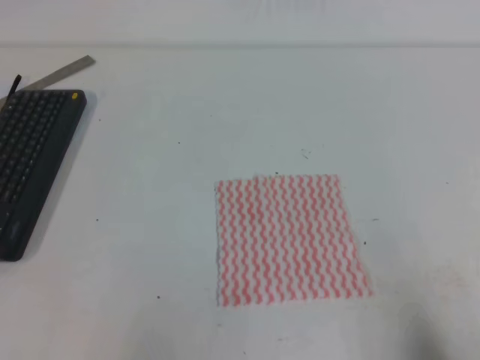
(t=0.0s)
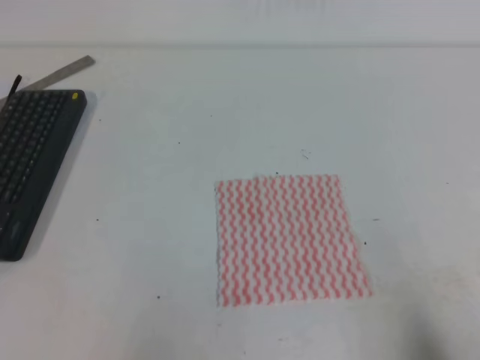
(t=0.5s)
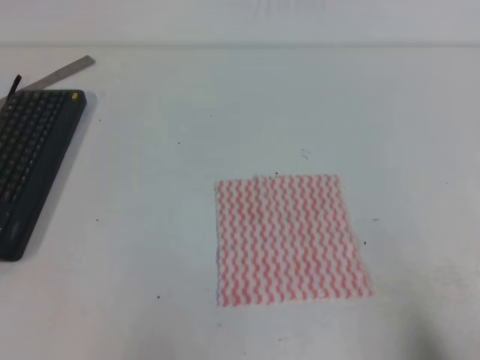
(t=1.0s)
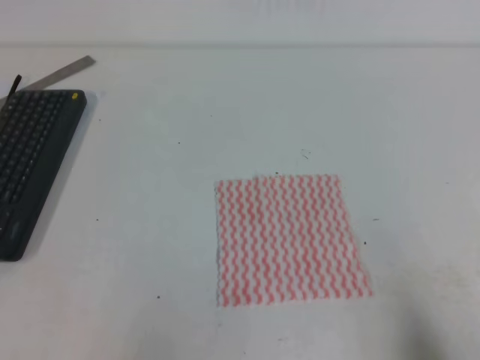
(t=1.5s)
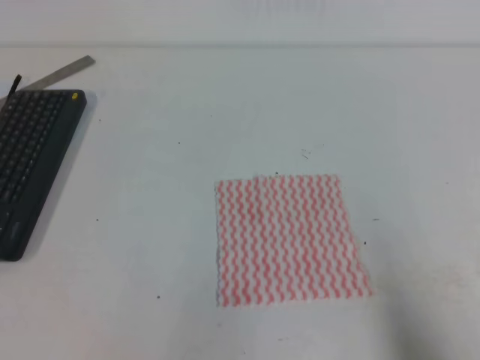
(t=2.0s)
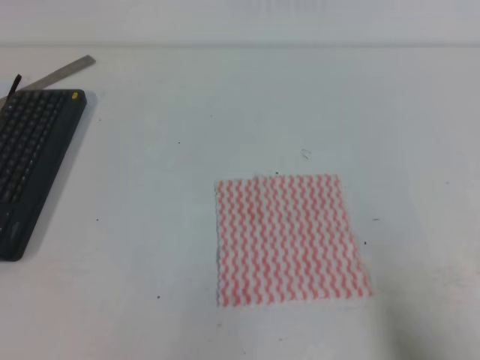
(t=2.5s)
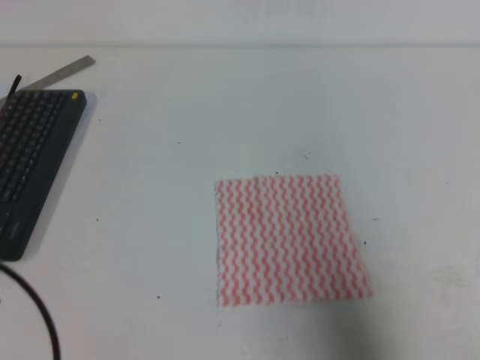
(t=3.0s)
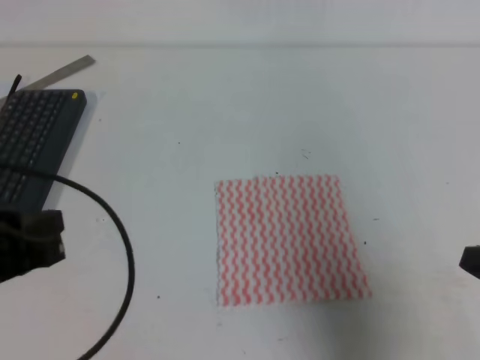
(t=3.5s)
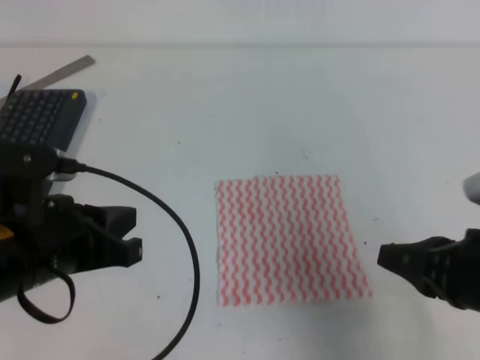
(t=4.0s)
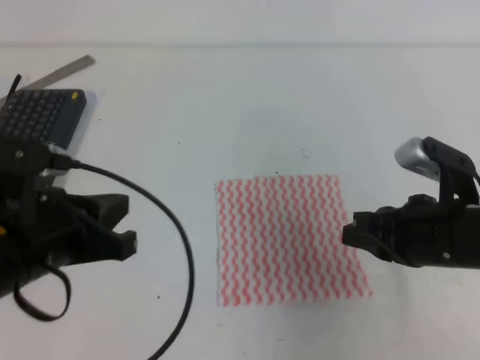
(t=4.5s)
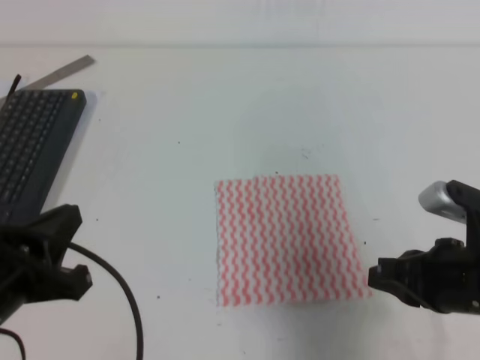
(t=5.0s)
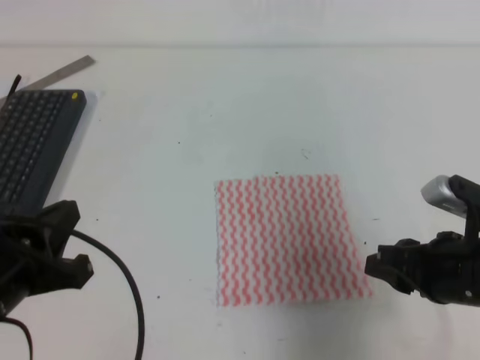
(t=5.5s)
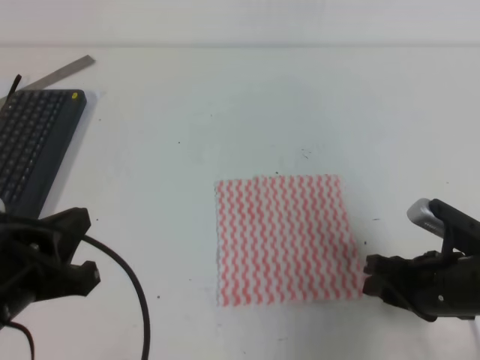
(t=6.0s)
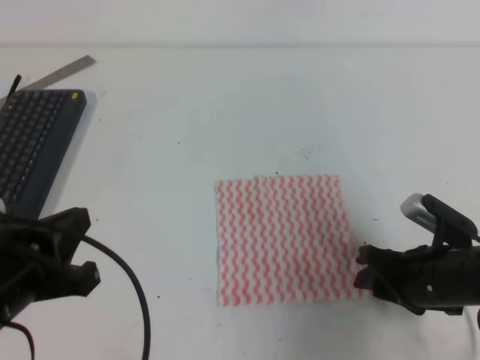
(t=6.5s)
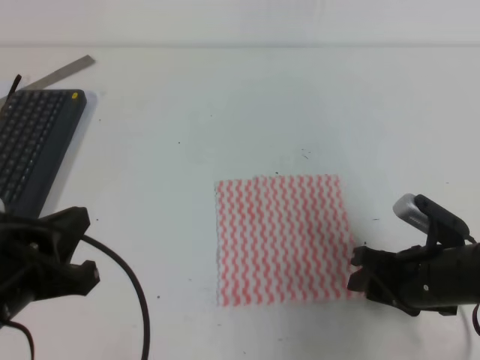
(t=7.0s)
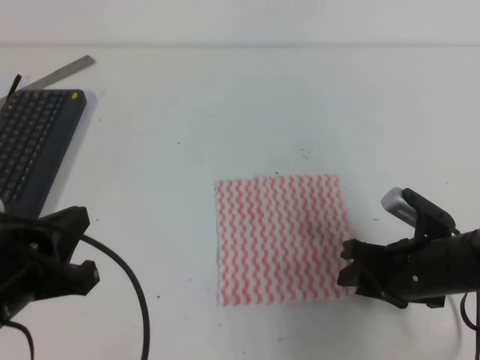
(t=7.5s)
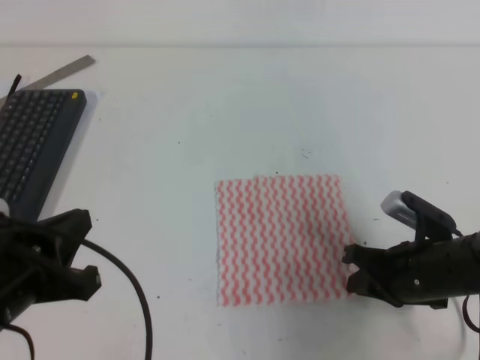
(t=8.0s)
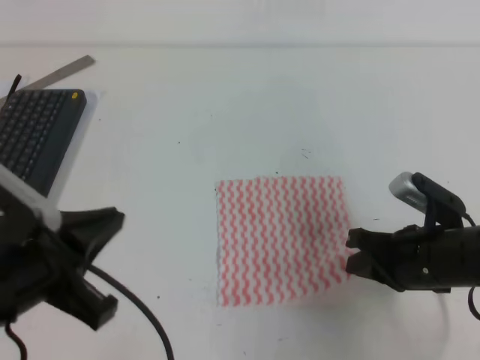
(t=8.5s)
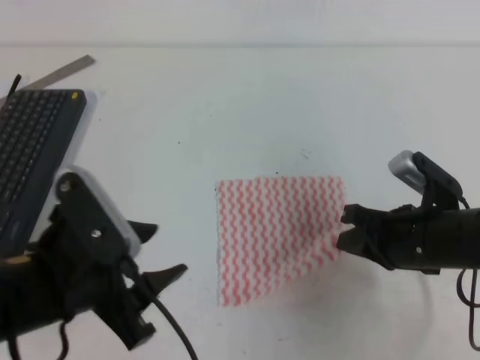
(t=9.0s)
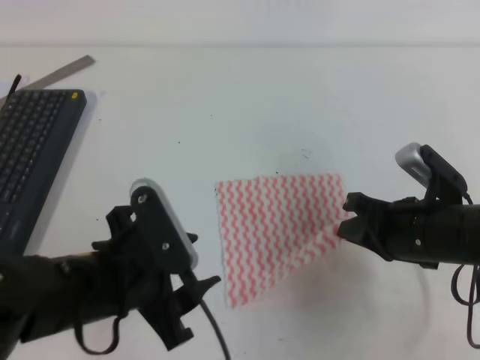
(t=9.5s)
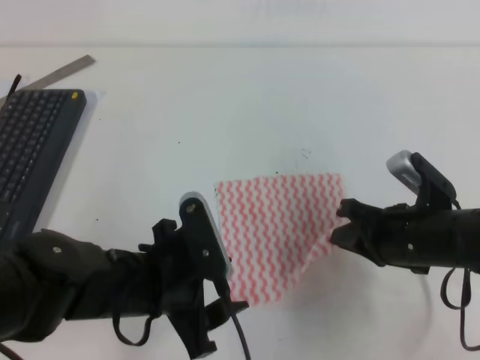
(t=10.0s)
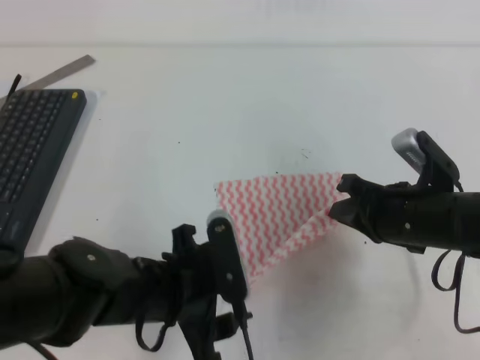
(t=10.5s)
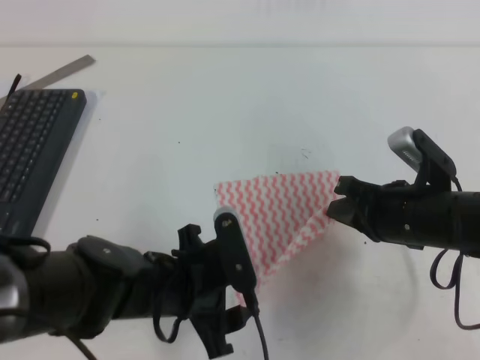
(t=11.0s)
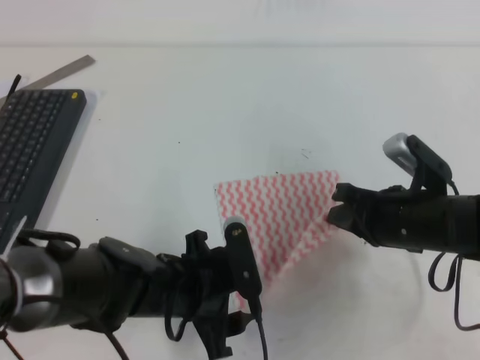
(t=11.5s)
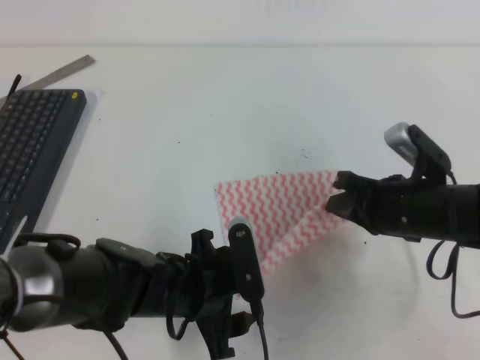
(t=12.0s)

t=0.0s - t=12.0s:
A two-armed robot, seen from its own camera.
t=2.0s - t=4.0s: The right gripper heads forward and to the left, covering approximately 15 cm. Meanwhile the left gripper heads forward, to the right and upward, covering about 15 cm.
t=4.0s - t=6.0s: The right gripper shifts about 10 cm downward and forward, and opens.
t=6.0s - t=8.0s: The right gripper closes its fingers.
t=8.0s - t=10.0s: The left gripper shifts some 15 cm to the right, downward and forward, and opens.
t=10.0s - t=12.0s: The left gripper is displaced downward by some 5 cm.

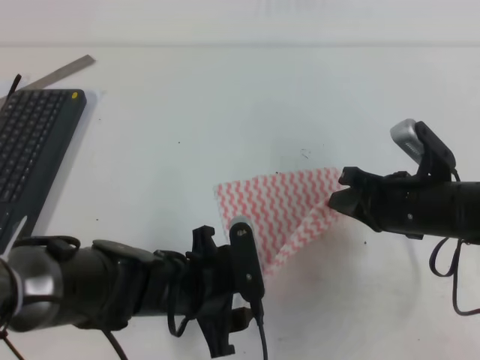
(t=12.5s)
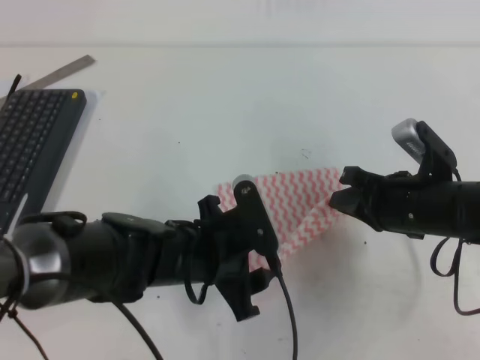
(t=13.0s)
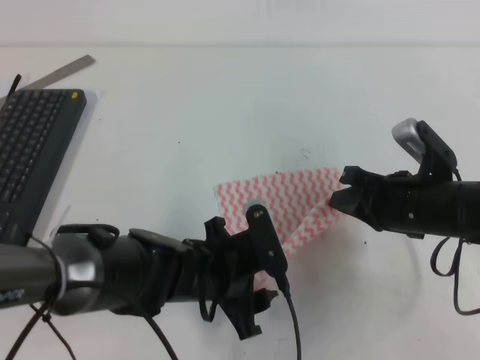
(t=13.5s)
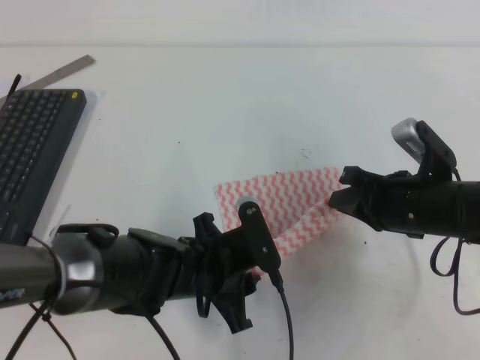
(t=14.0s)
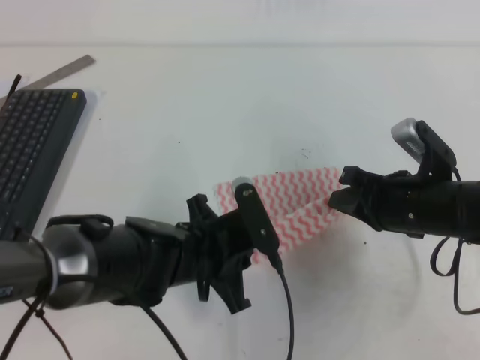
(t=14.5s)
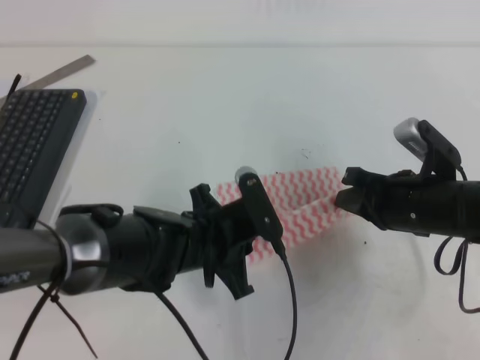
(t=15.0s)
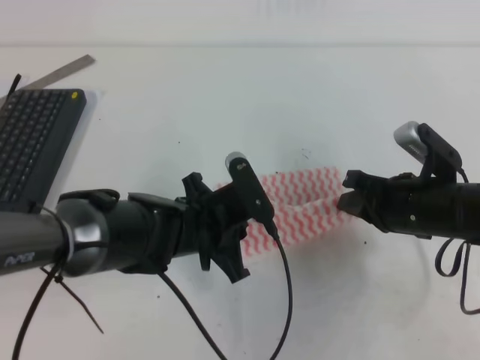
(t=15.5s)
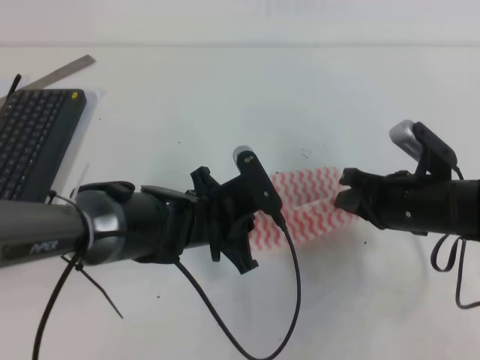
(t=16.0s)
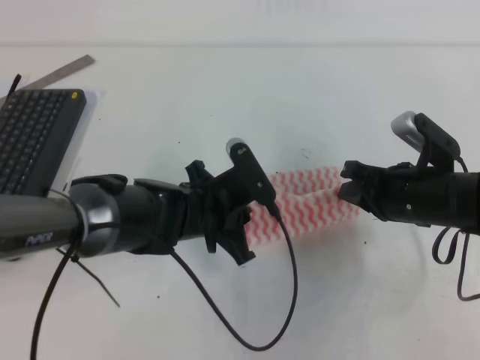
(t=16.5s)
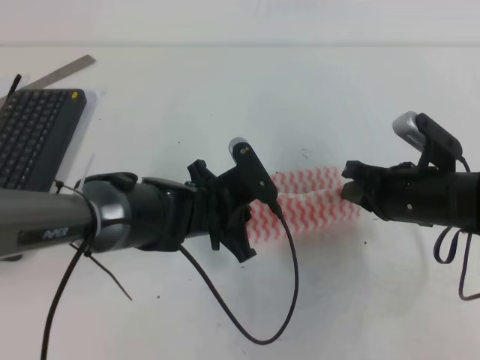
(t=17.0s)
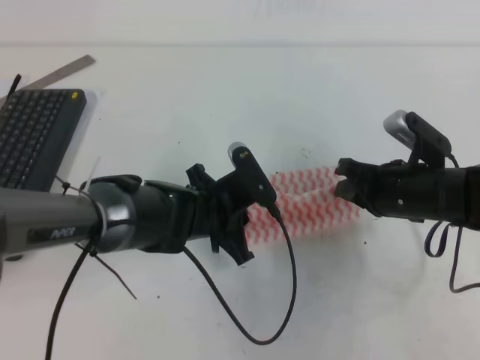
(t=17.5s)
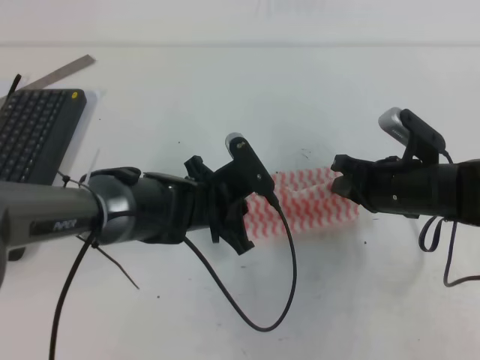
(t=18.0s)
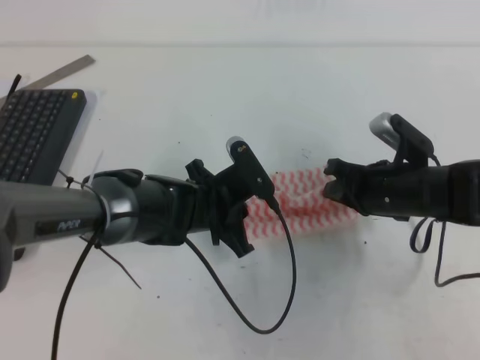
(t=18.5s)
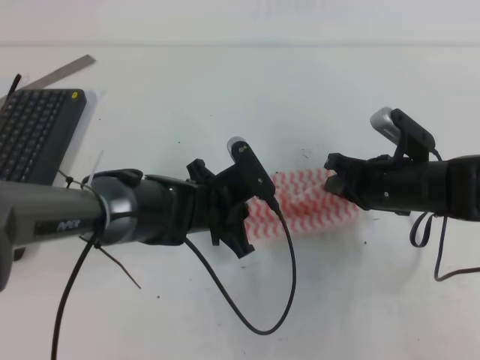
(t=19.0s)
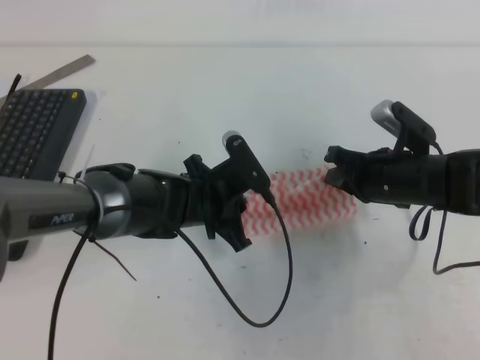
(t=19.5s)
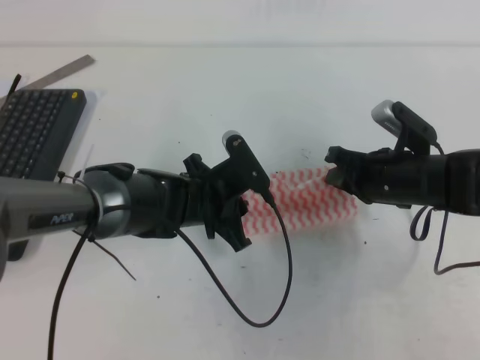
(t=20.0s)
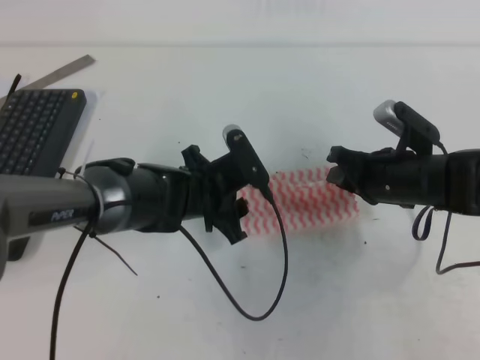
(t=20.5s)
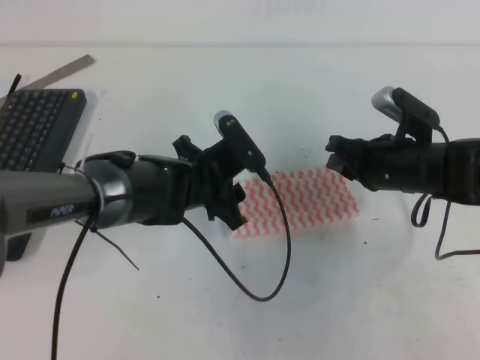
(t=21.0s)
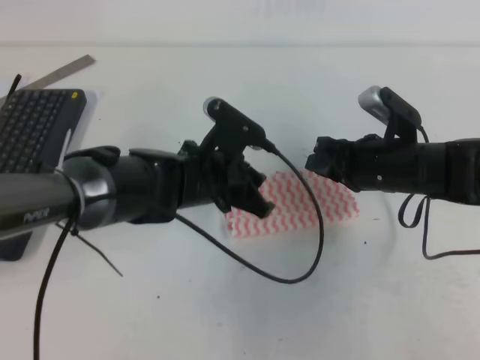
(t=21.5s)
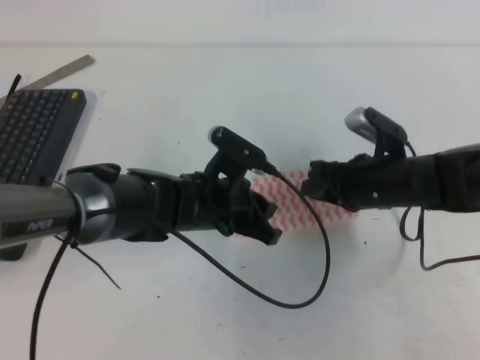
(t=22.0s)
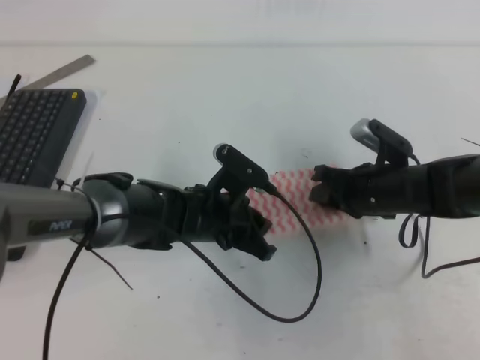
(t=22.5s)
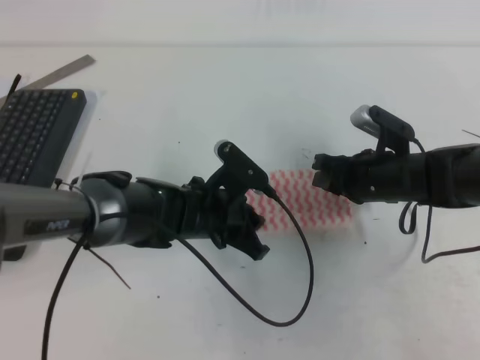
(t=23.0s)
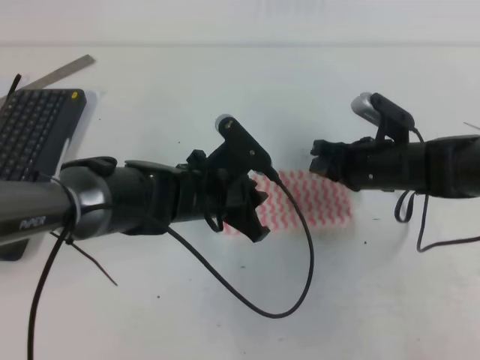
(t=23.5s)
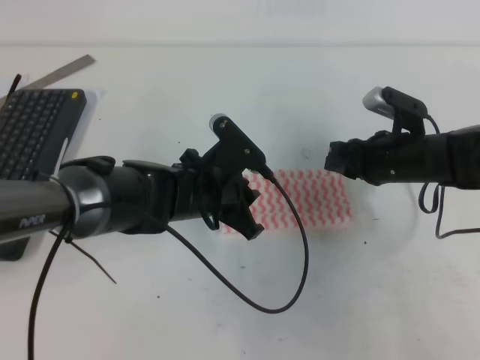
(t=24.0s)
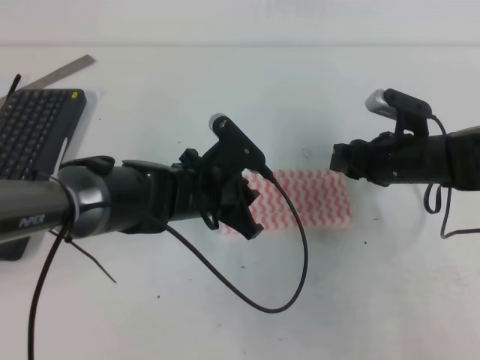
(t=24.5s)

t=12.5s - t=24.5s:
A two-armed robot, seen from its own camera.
t=12.5s - t=14.5s: The left gripper closes.
t=14.5s - t=16.5s: The left gripper goes about 5 cm forward.
t=16.5s - t=18.5s: The grippers move only a little.
t=18.5s - t=20.5s: The right gripper opens up; the left gripper opens its fingers.
t=20.5s - t=22.5s: The left gripper closes up.
t=22.5s - t=24.5s: The right gripper opens up.

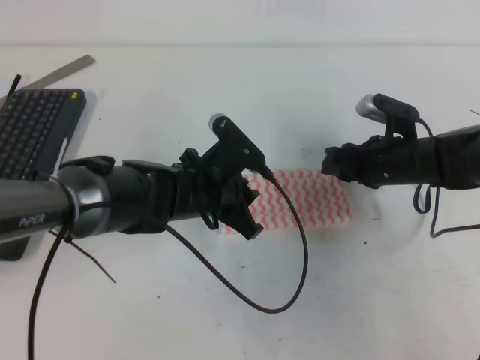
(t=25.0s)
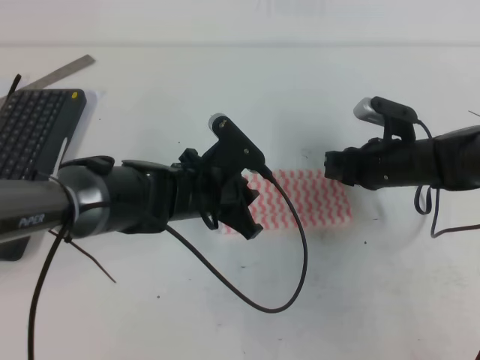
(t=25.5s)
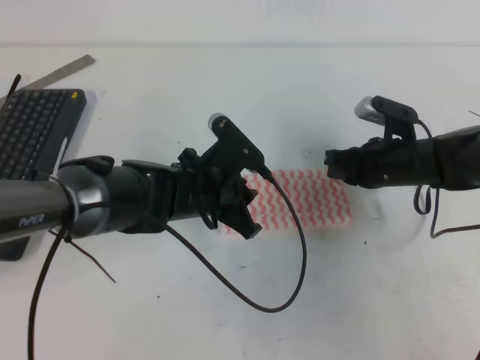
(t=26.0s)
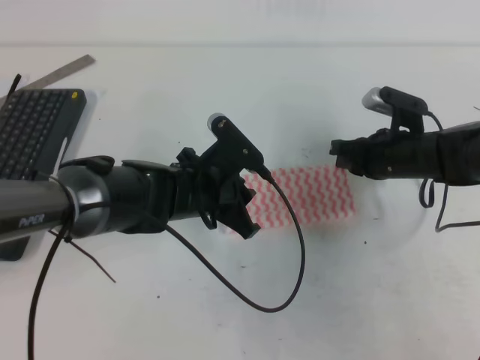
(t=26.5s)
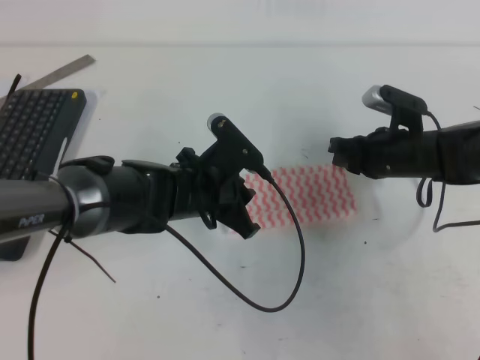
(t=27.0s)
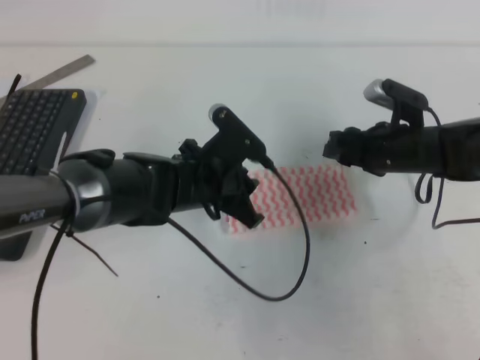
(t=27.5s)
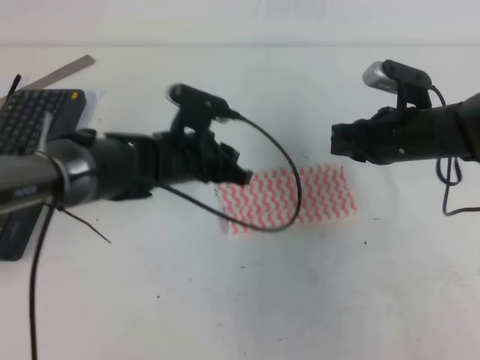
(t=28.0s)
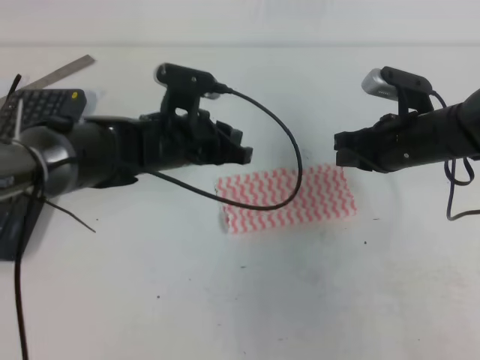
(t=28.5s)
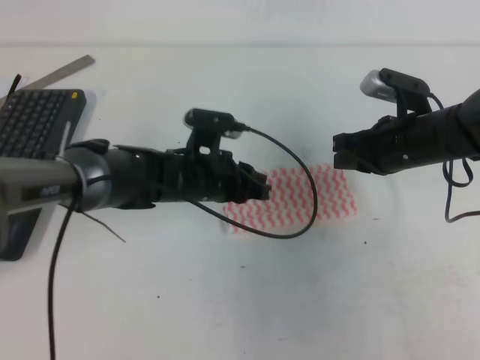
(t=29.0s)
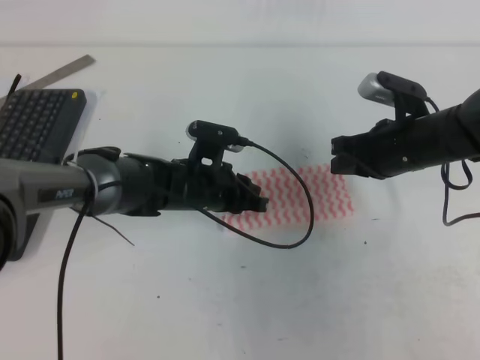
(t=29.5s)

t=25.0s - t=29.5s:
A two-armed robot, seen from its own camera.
t=25.0s - t=27.0s: The right gripper closes its fingers.
t=27.0s - t=29.5s: The right gripper heads upward, covering approximately 5 cm, and opens and closes again. Meanwhile the left gripper moves roughly 5 cm.
